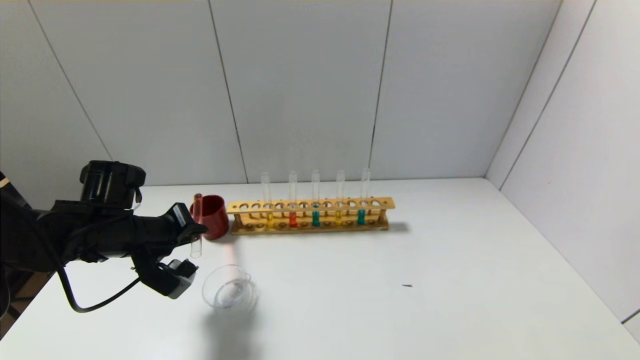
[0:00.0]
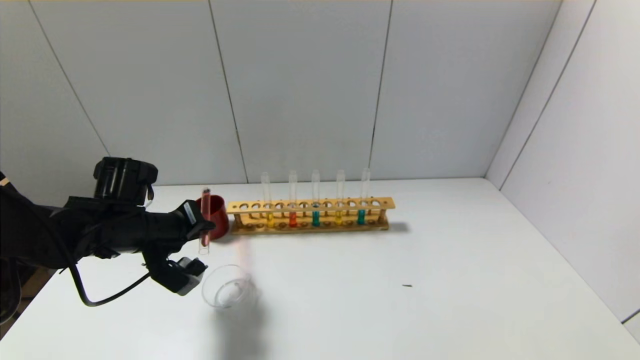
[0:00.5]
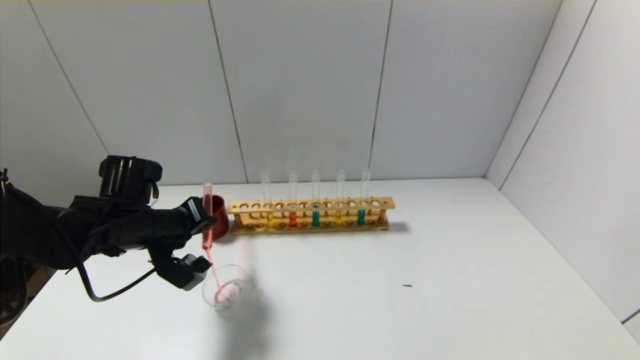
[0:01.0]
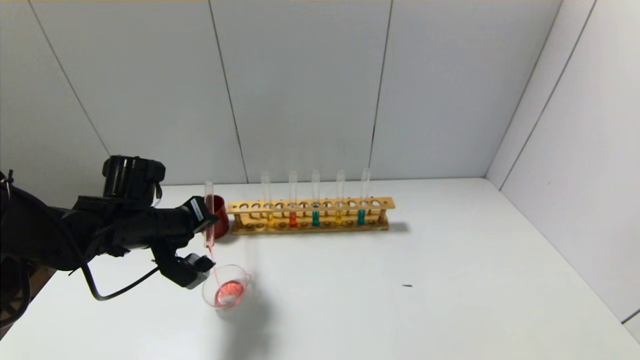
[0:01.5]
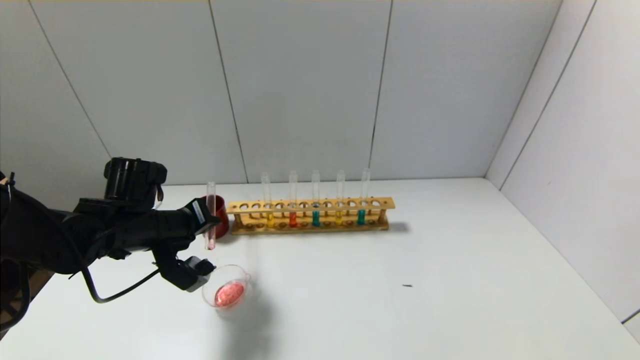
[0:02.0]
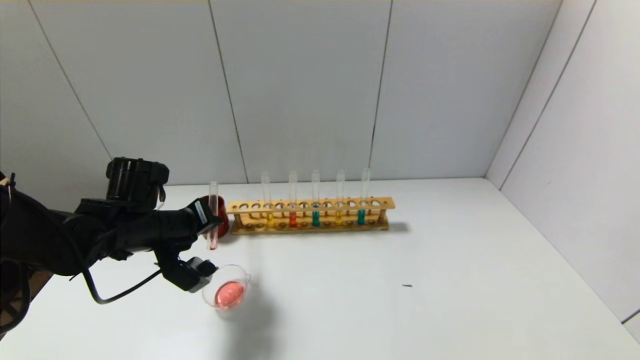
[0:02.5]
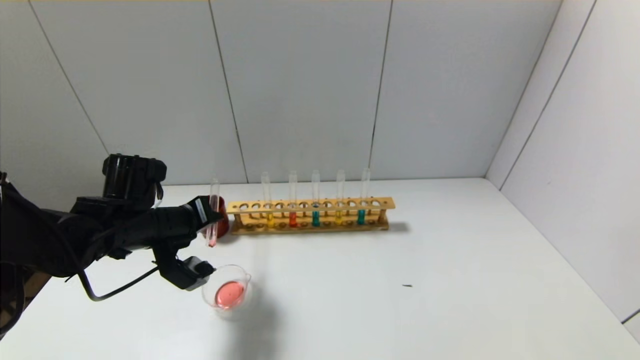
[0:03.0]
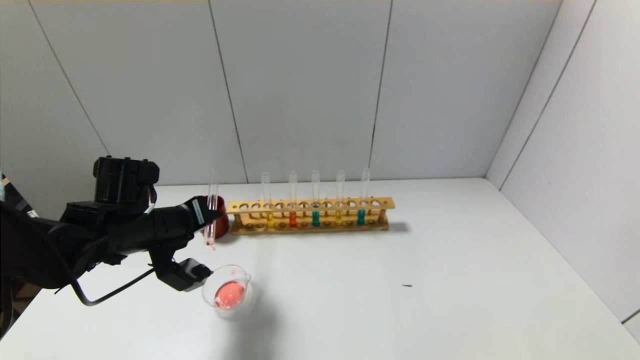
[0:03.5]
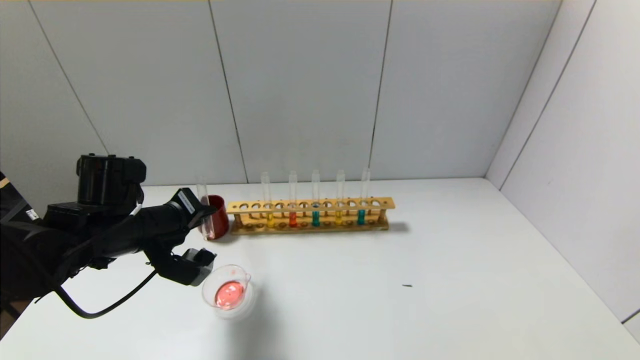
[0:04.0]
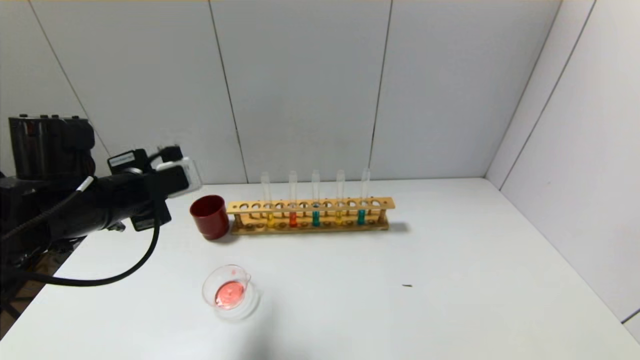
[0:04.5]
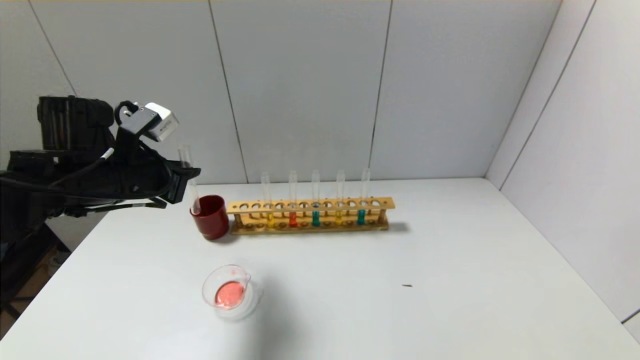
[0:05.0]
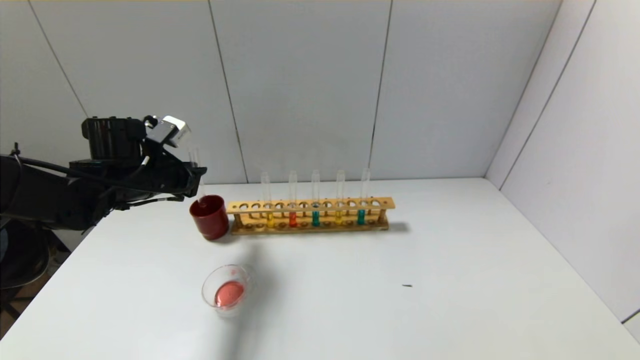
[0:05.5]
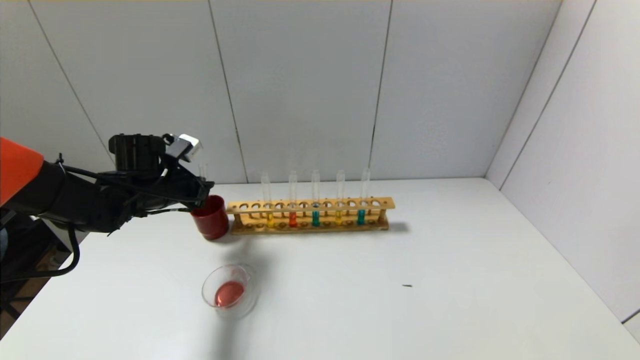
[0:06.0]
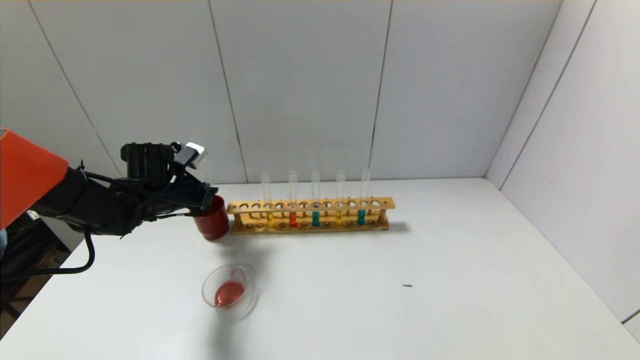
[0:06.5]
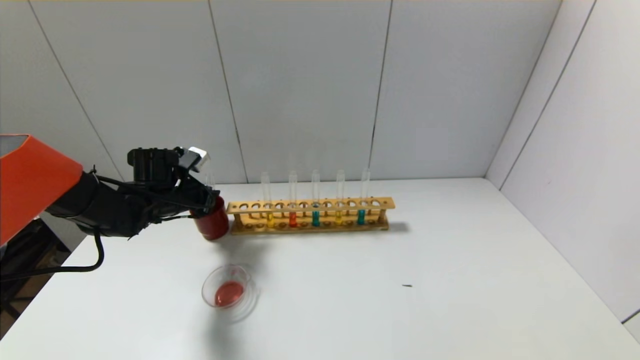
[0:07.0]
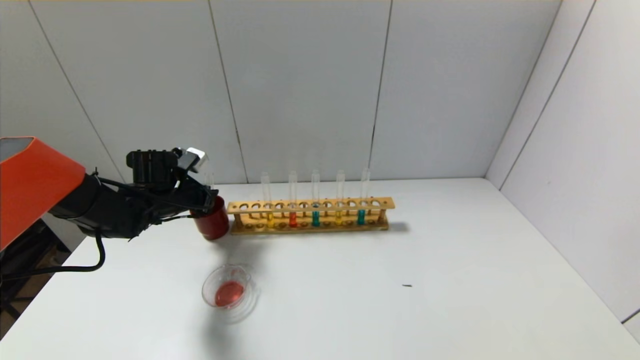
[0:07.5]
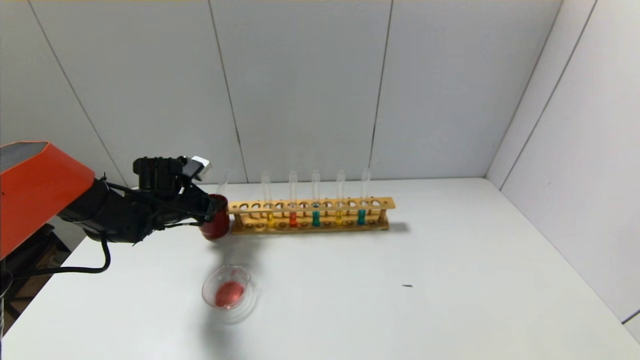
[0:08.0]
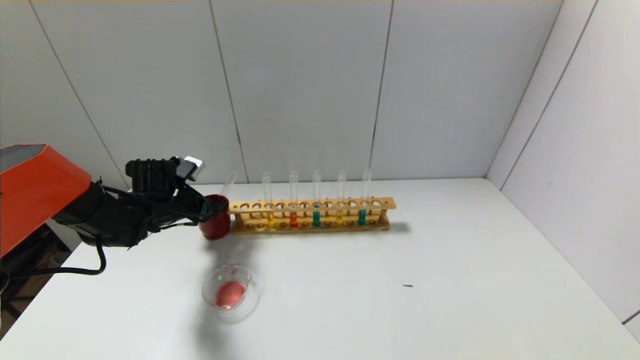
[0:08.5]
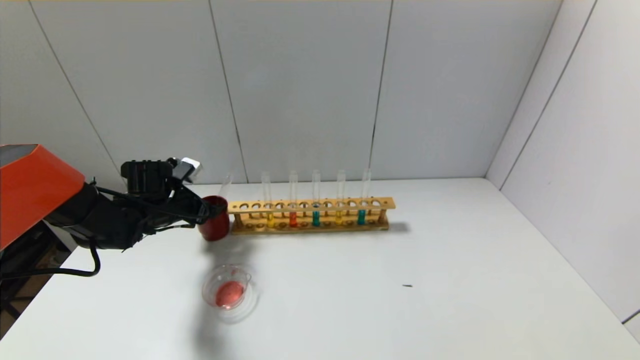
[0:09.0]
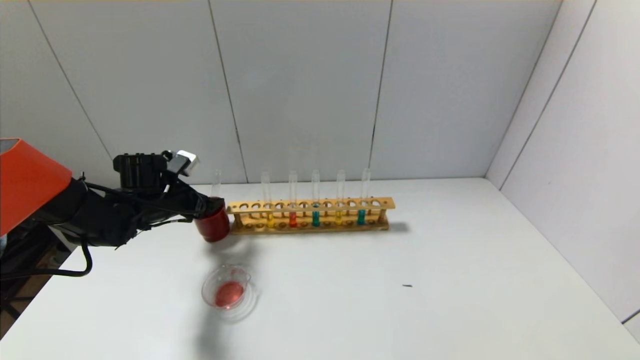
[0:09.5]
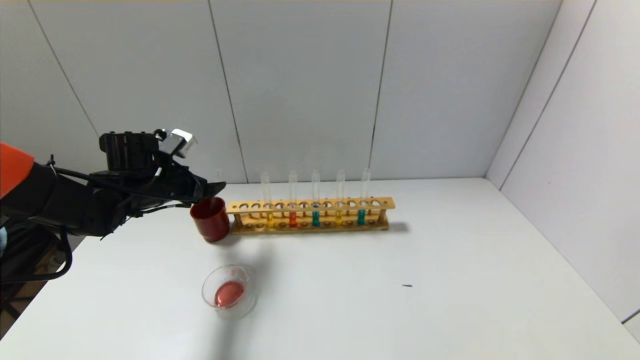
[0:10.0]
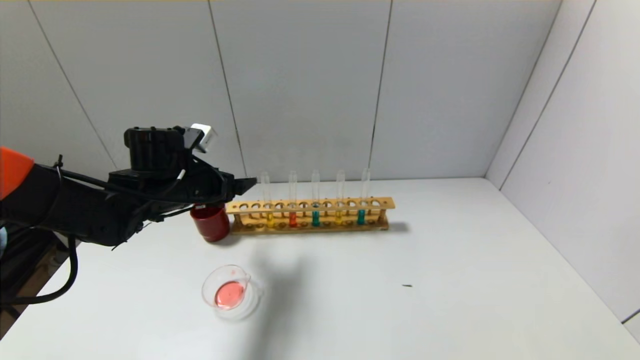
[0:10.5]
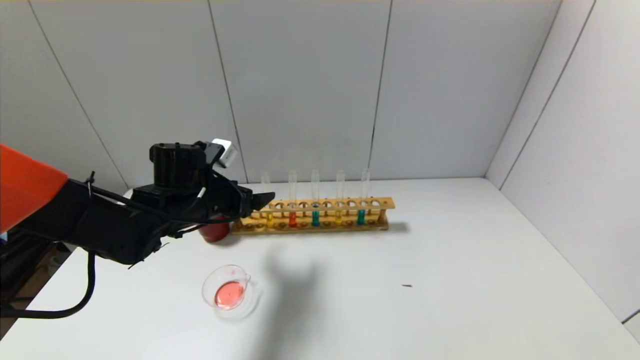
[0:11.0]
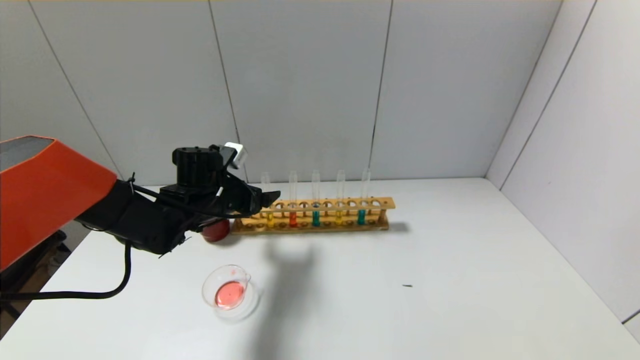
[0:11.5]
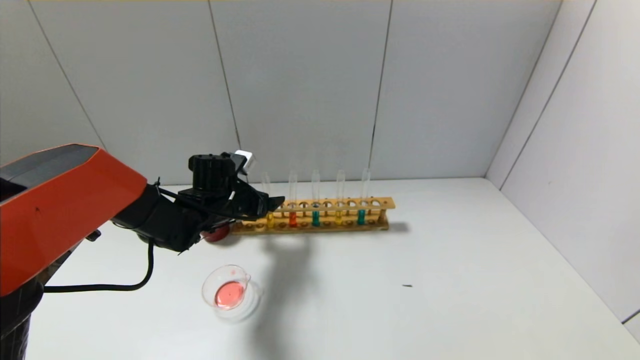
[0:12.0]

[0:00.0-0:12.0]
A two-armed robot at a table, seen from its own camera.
Step, 0:00.0 to 0:03.0: Pour the red reagent into the graduated cylinder with the left gripper.
Step, 0:03.5 to 0:08.0: Place the test tube into the brown cup with the left gripper.
0:00.0 to 0:02.0: The grippers stay close to where they were, moving slightly.
0:02.0 to 0:04.0: There are only small adjustments of the grippers.
0:04.0 to 0:06.0: The left gripper moves forward, some 10 cm.
0:06.0 to 0:08.0: The left gripper heads downward, covering about 5 cm, and opens.
0:08.0 to 0:10.0: The left gripper is displaced upward by some 5 cm, and opens.
0:10.0 to 0:12.0: The left gripper moves to the right and downward, some 10 cm.

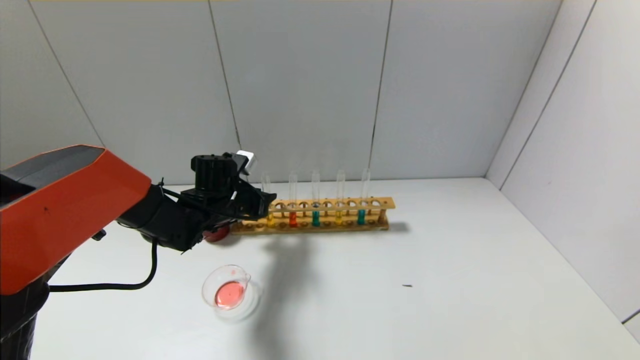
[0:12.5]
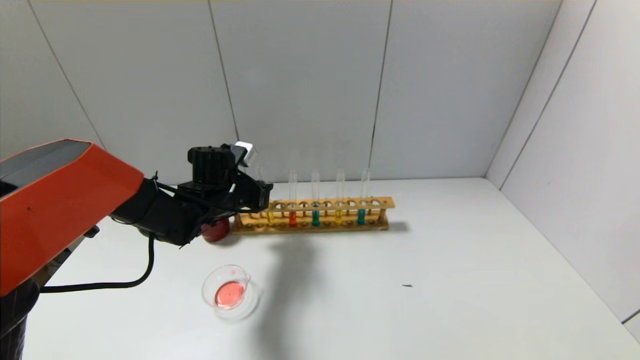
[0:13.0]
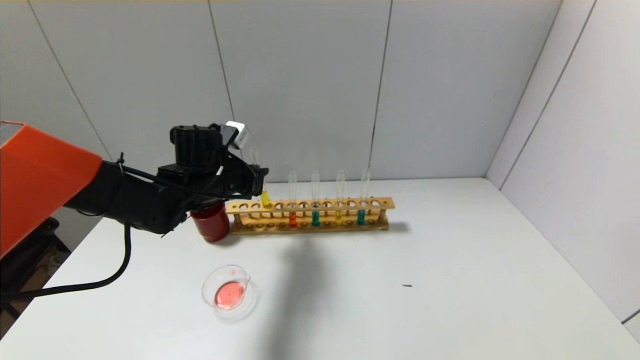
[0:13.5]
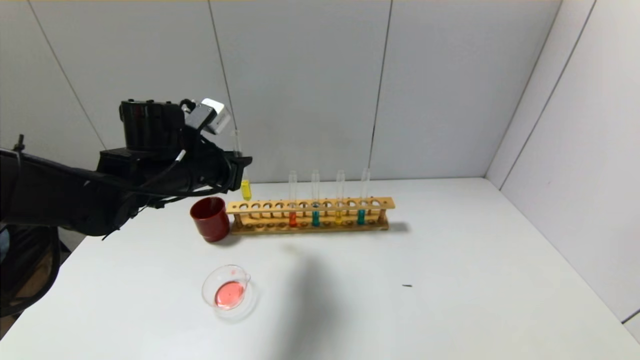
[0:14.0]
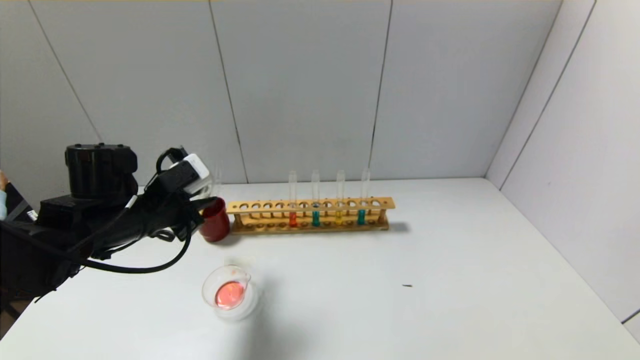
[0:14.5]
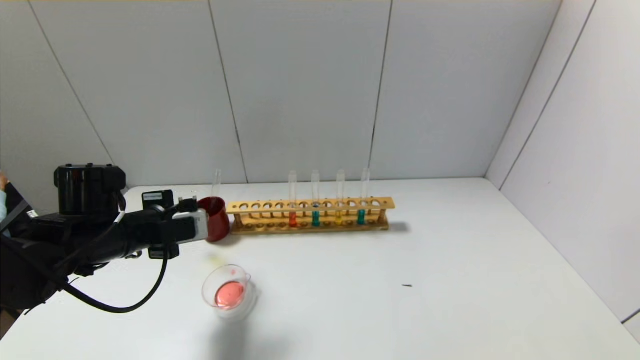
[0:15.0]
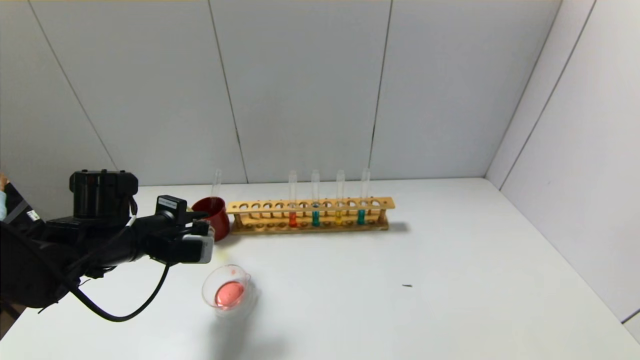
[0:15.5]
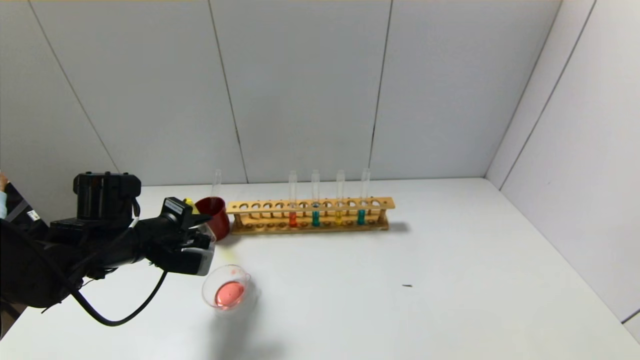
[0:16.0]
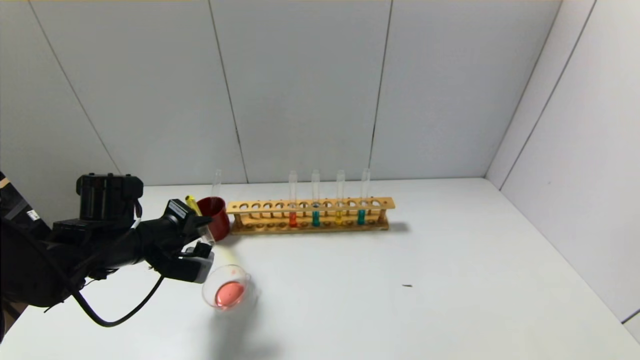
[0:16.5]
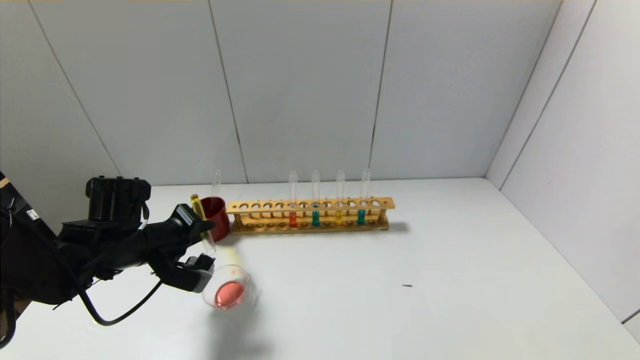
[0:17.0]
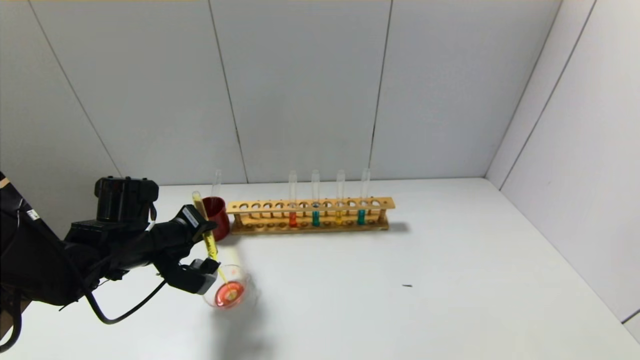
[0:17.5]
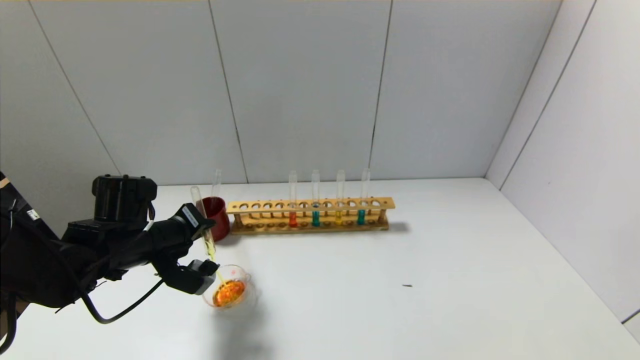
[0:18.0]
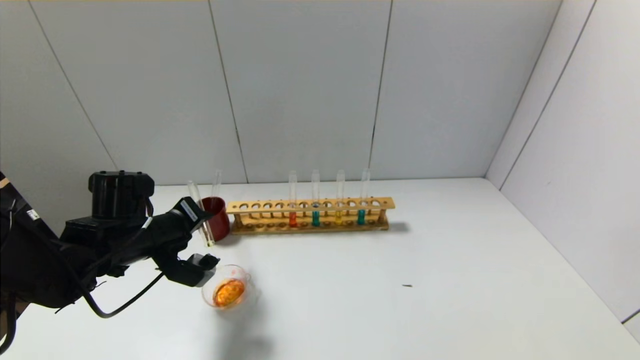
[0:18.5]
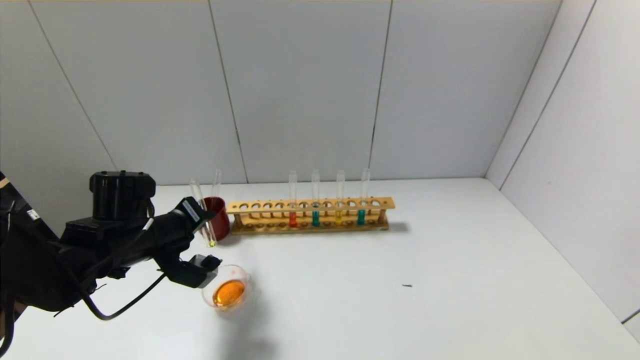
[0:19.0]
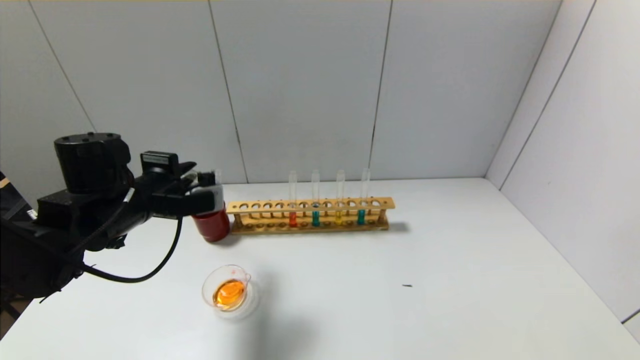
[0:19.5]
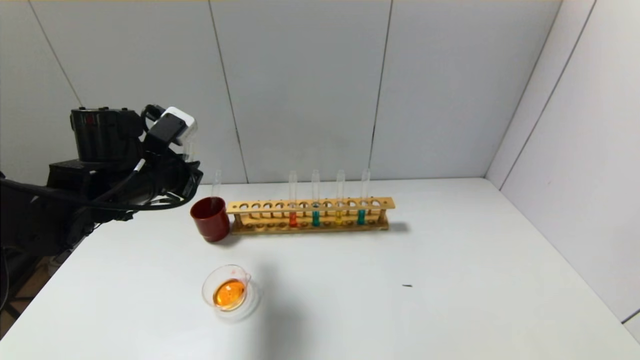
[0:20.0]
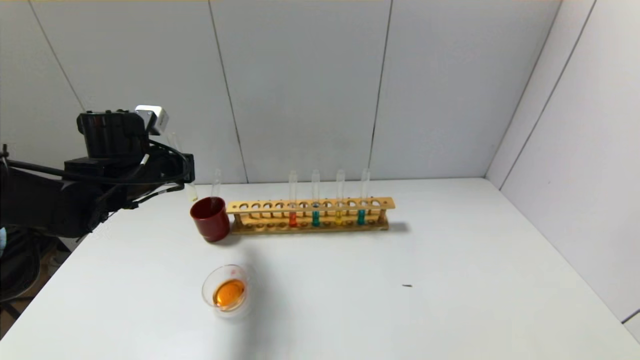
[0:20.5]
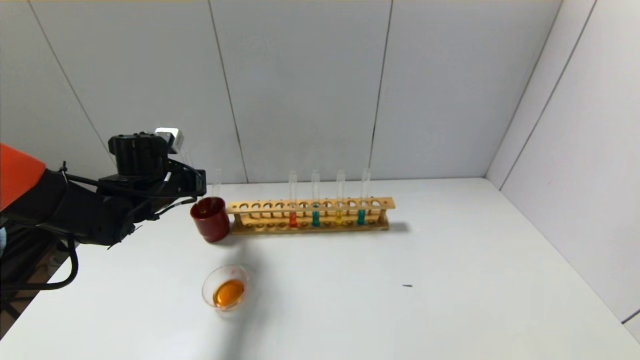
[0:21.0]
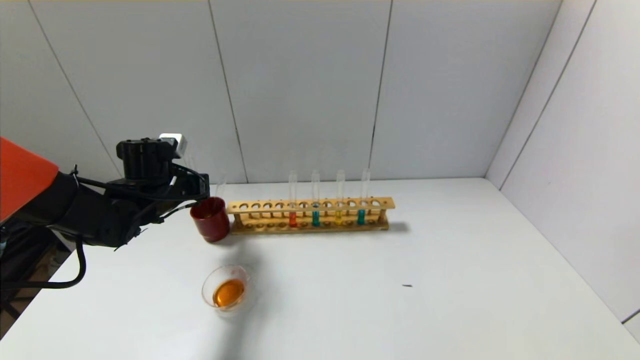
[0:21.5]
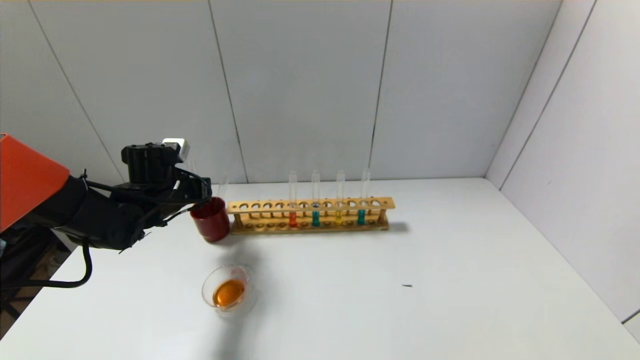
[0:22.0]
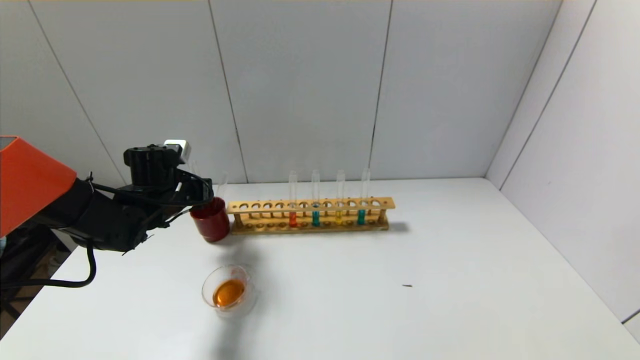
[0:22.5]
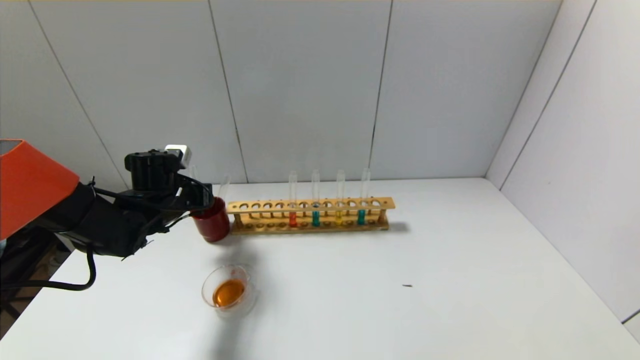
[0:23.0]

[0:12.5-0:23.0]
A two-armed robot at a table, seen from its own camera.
Step, 0:13.0 to 0:19.0: Pour the yellow reagent into the graduated cylinder with the left gripper.
0:12.5 to 0:14.5: The left gripper is displaced backward, to the left and upward by about 15 cm.
0:19.0 to 0:21.0: The left gripper shifts about 10 cm forward.
0:21.0 to 0:23.0: There are only small adjustments of the grippers.
